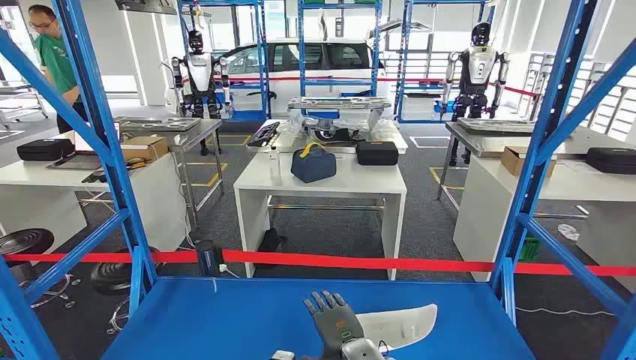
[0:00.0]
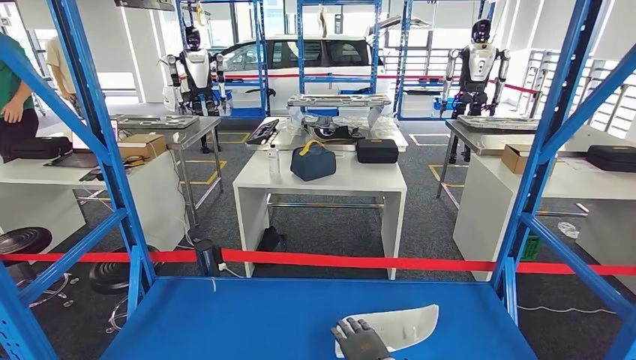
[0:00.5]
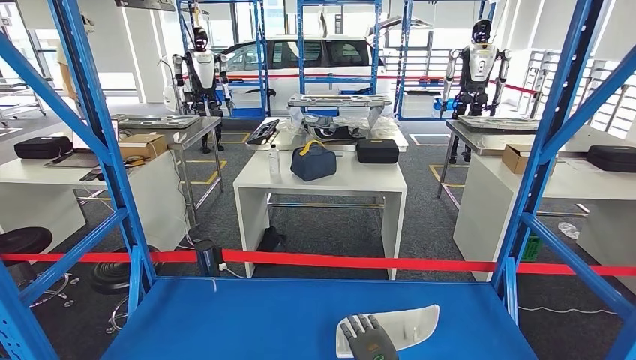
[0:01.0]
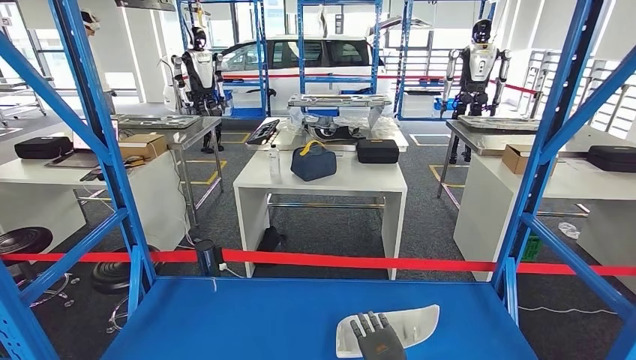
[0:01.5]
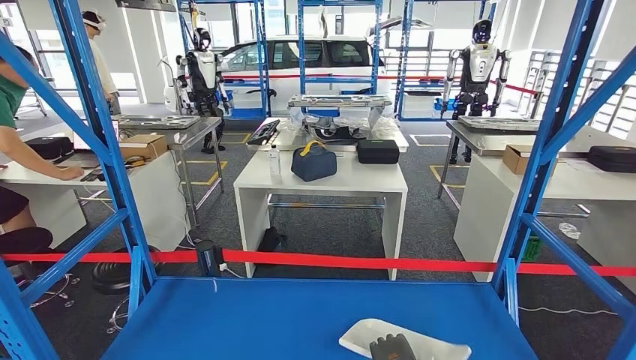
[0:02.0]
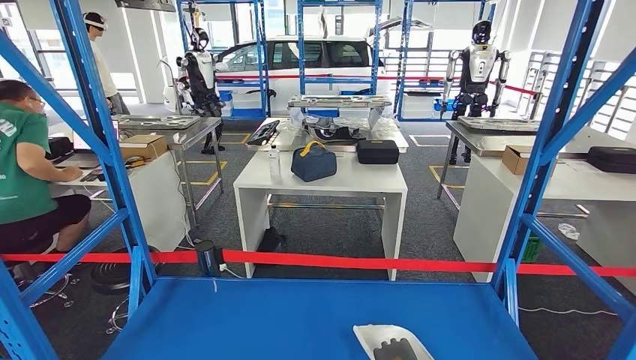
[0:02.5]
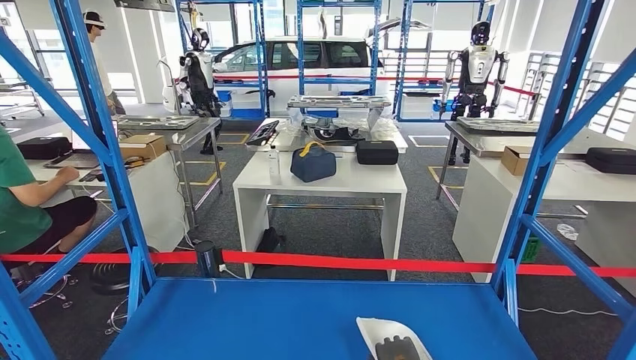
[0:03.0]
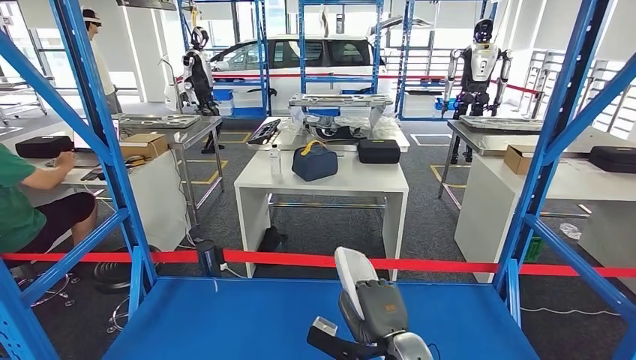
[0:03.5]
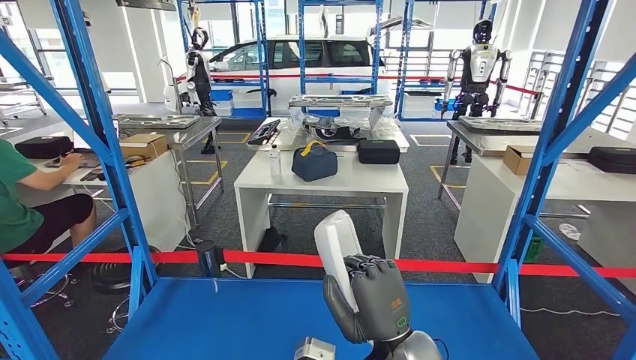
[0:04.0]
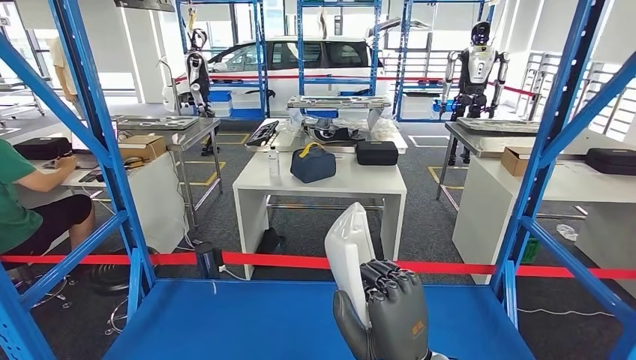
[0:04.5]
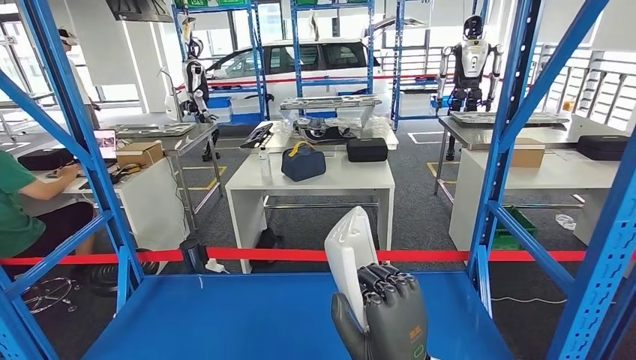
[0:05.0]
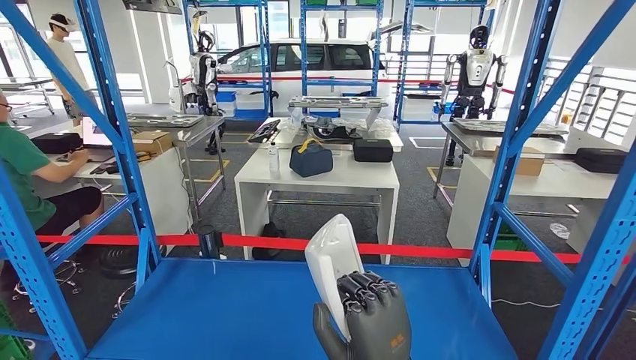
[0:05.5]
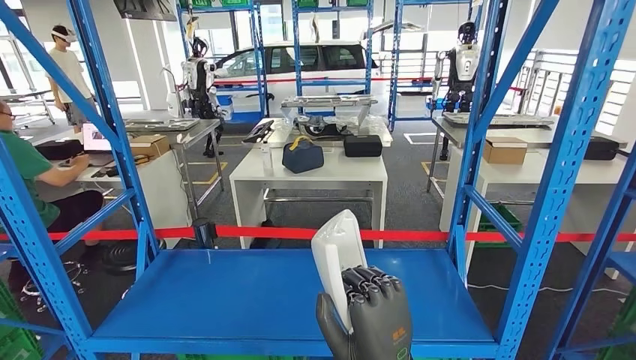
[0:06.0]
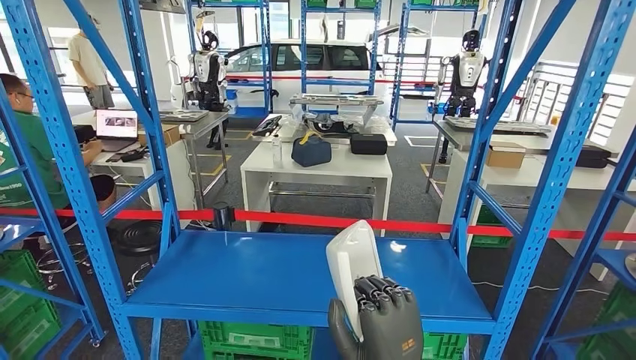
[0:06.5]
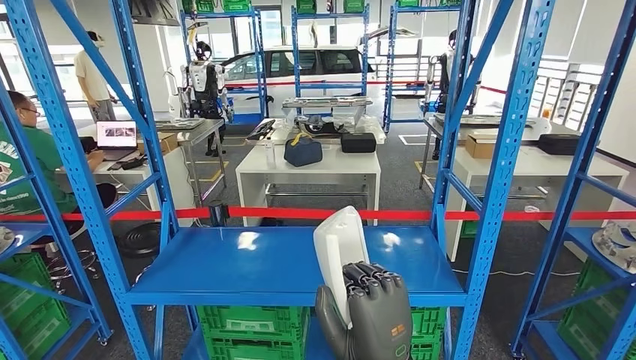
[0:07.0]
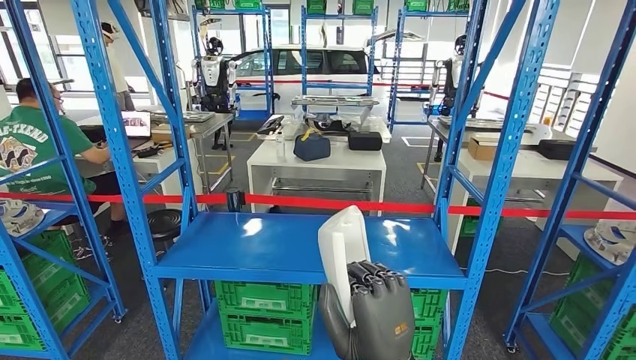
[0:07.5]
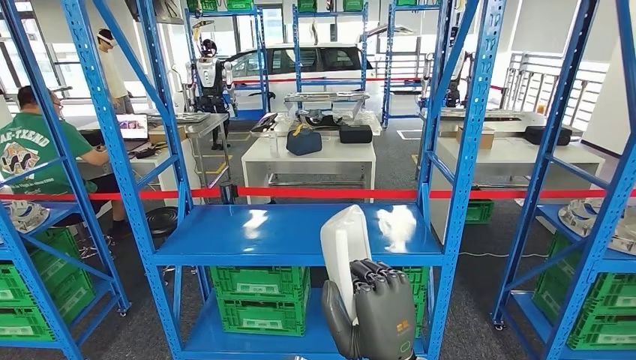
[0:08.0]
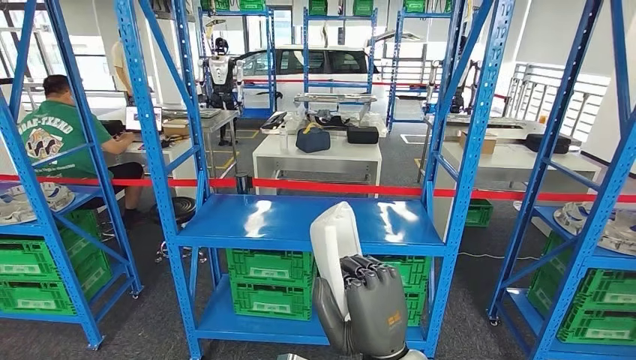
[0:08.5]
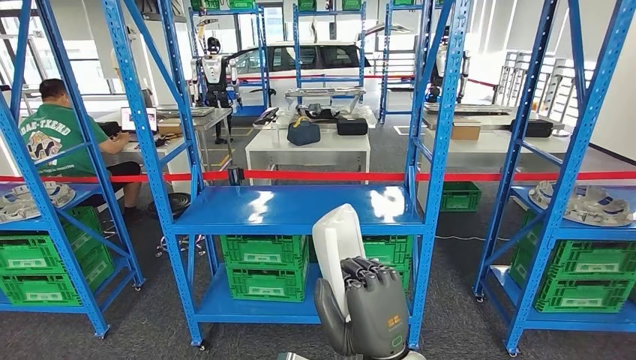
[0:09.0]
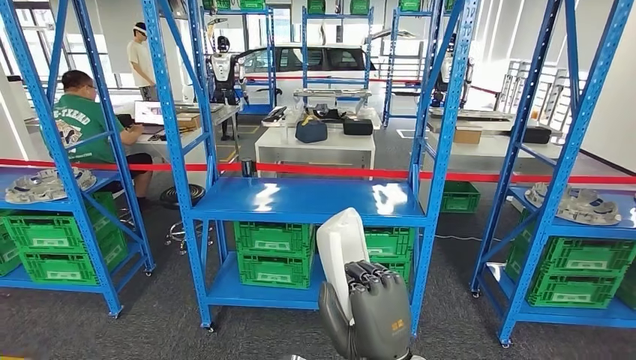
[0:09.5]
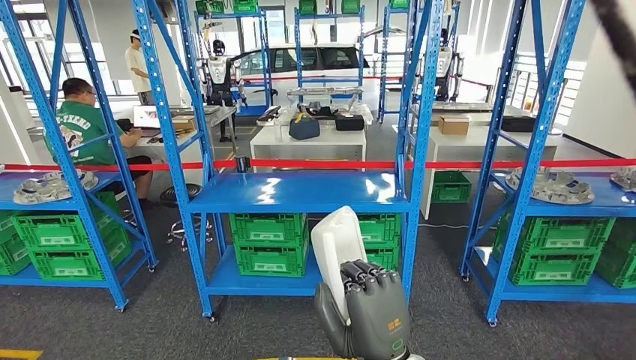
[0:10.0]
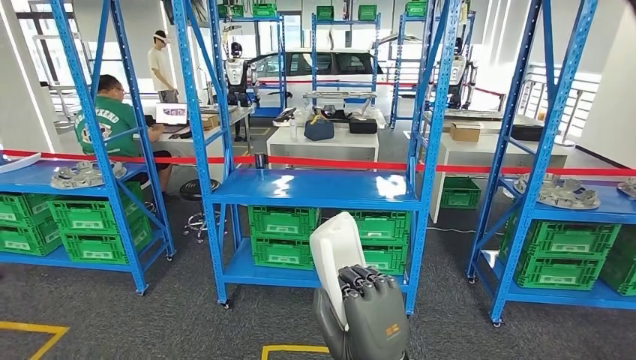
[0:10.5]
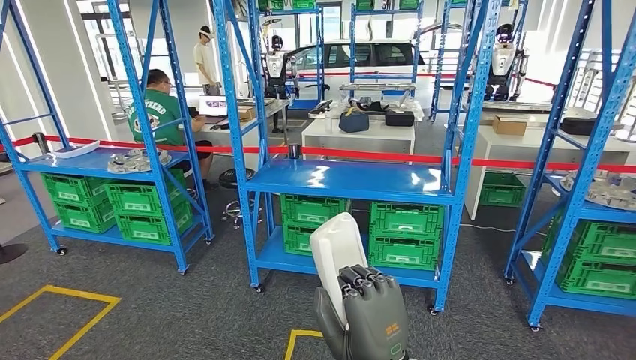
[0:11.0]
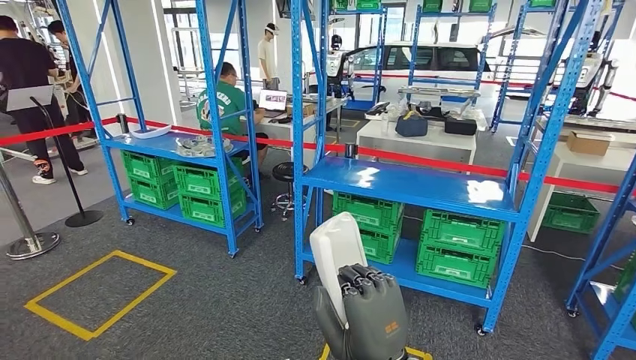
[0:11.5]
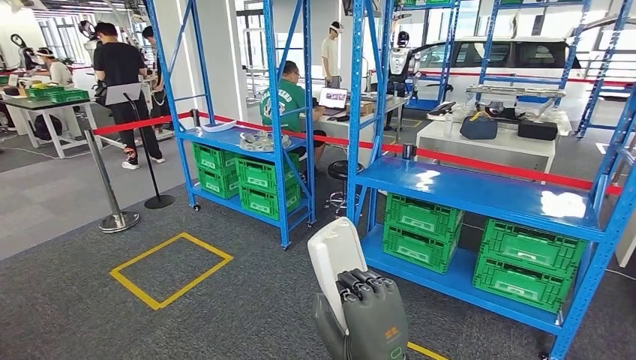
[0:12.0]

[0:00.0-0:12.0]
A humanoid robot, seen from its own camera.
Step, 0:00.0 to 0:04.0: Pick up the small component from the shelf.
0:02.0 to 0:04.0: The right hand is displaced upward and to the left by roughly 20 cm.

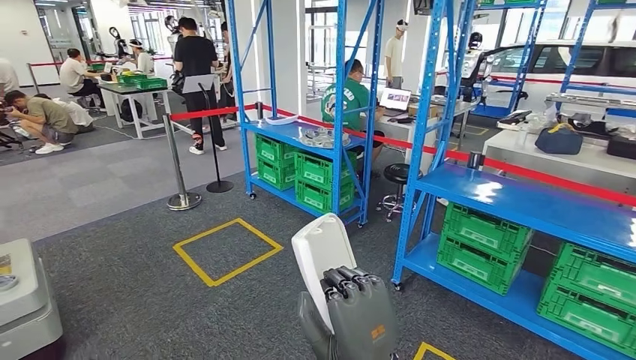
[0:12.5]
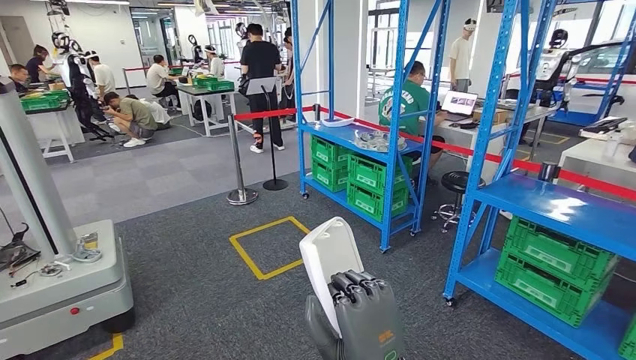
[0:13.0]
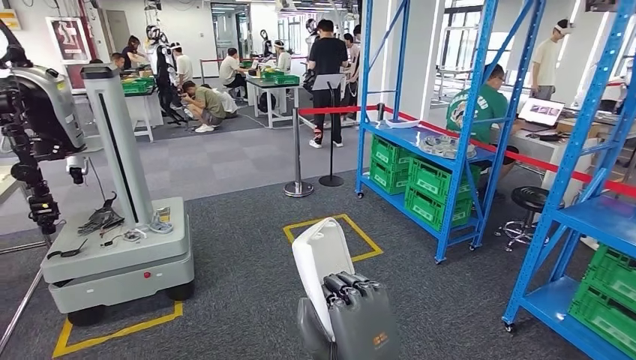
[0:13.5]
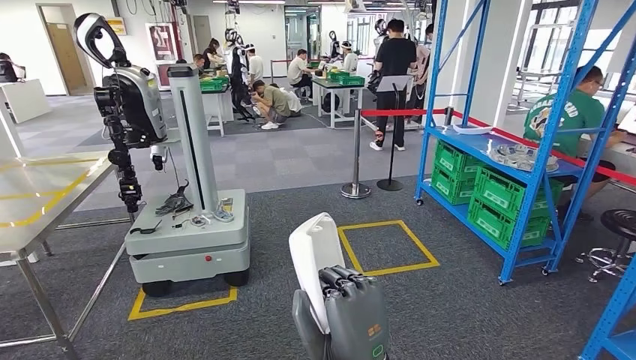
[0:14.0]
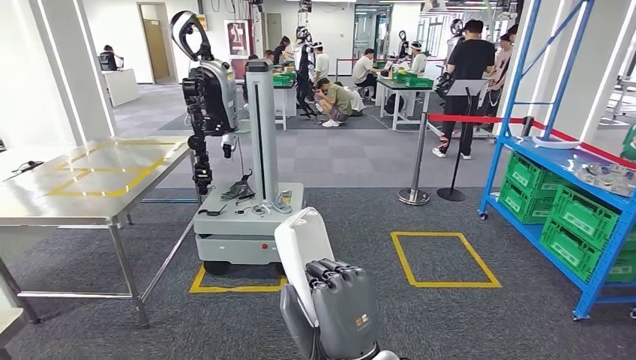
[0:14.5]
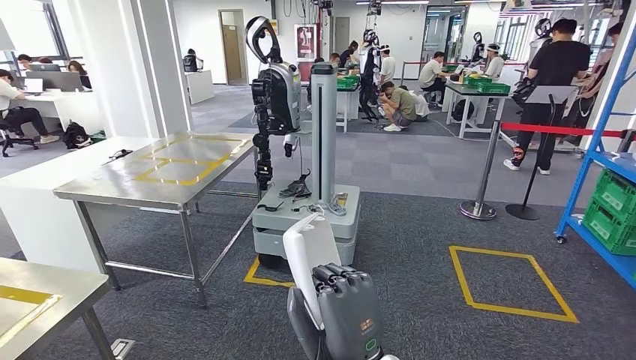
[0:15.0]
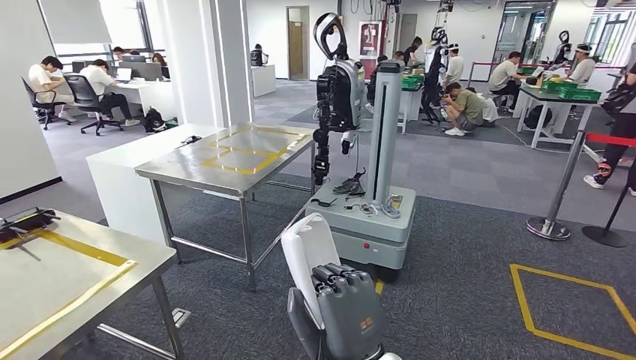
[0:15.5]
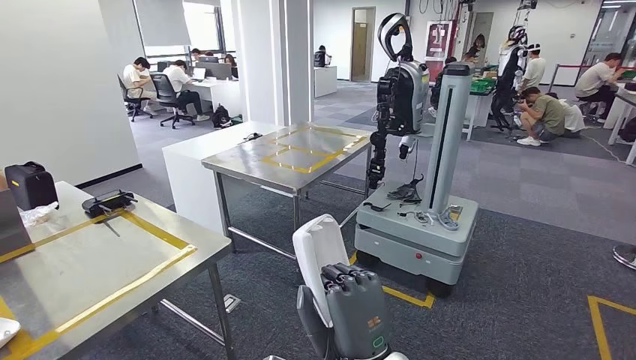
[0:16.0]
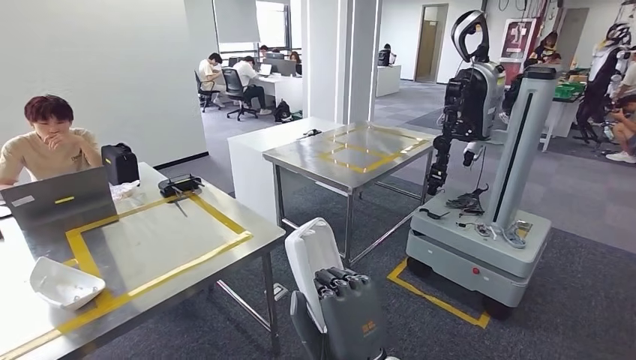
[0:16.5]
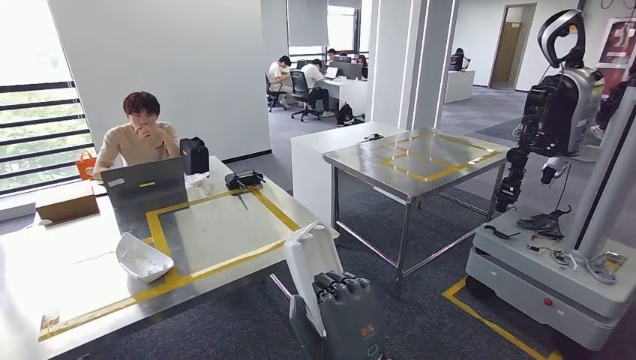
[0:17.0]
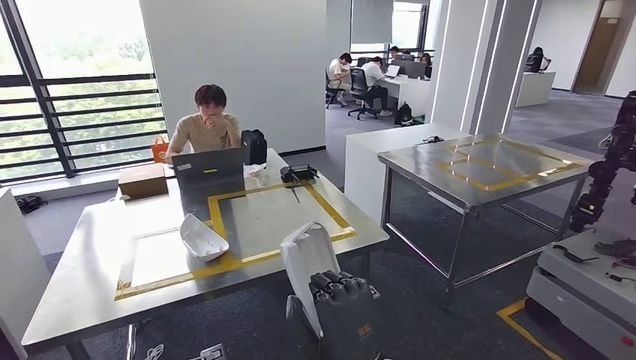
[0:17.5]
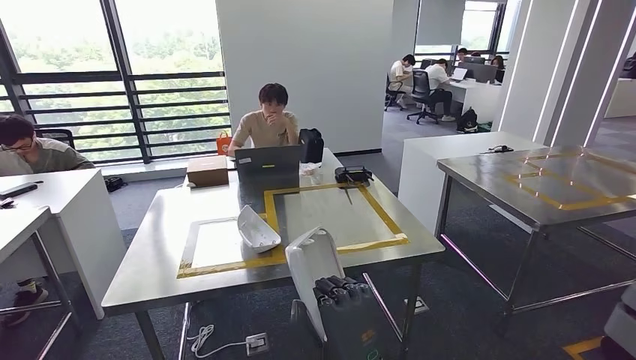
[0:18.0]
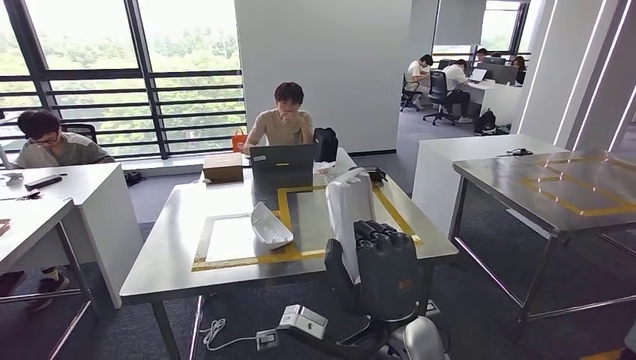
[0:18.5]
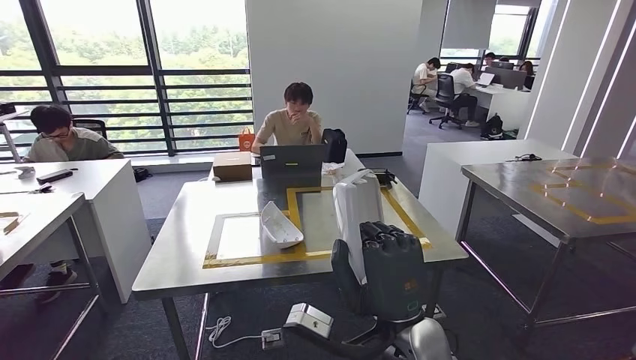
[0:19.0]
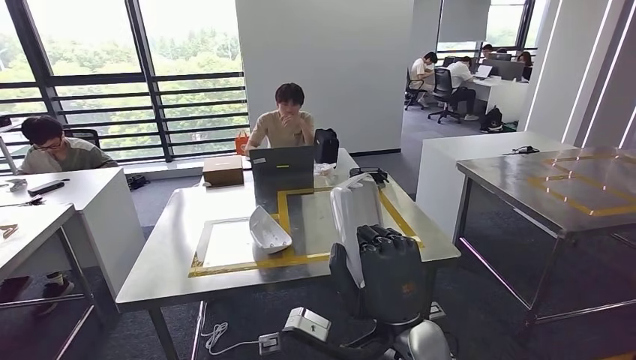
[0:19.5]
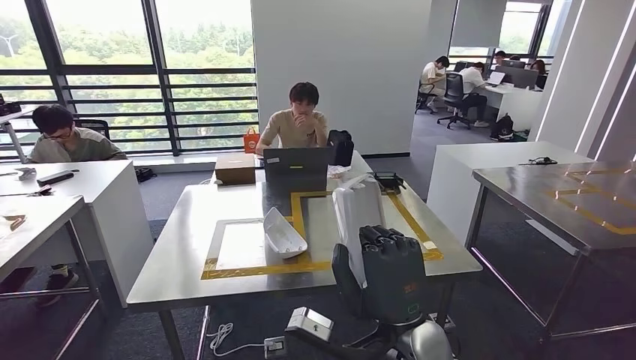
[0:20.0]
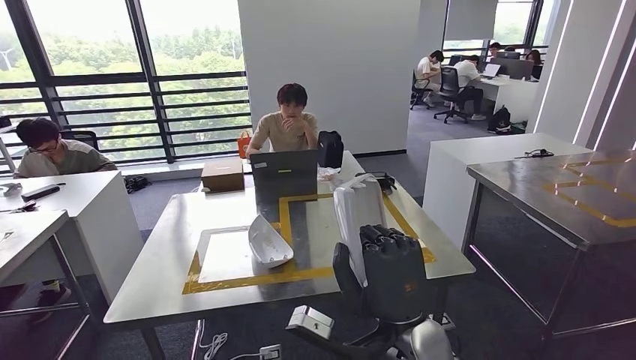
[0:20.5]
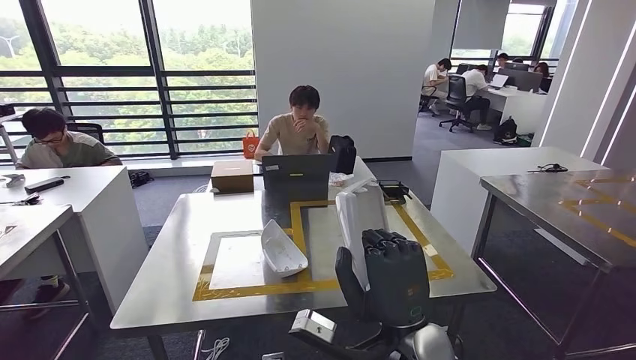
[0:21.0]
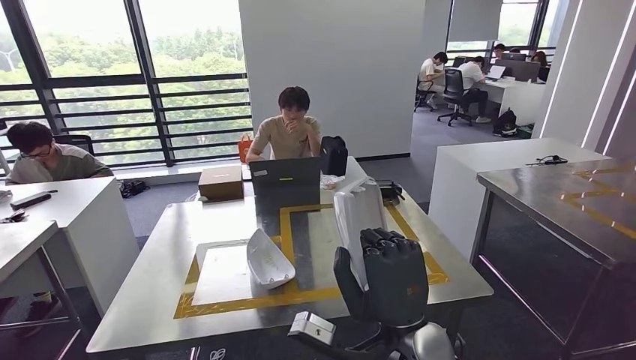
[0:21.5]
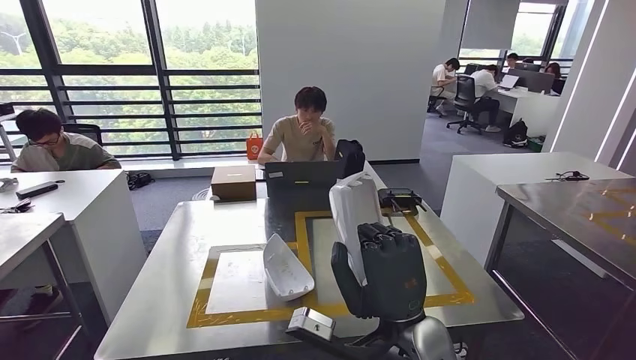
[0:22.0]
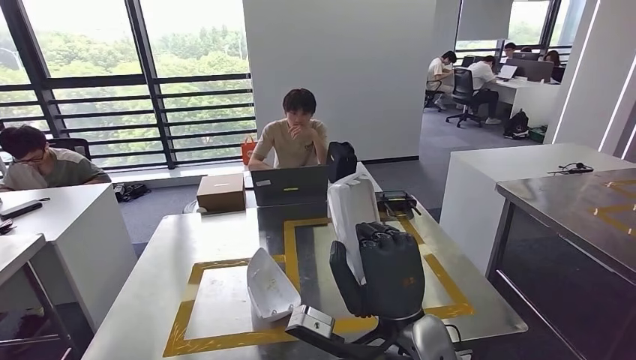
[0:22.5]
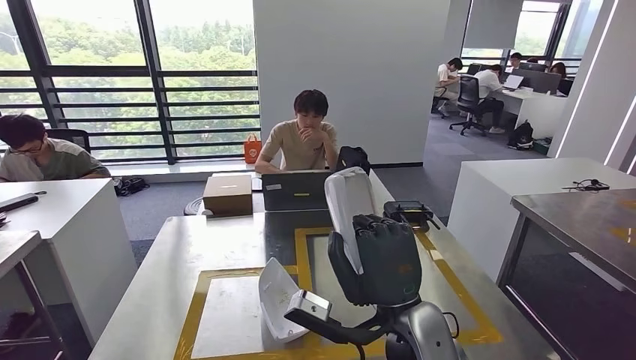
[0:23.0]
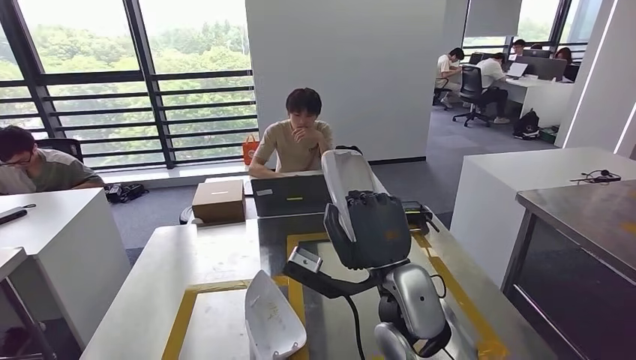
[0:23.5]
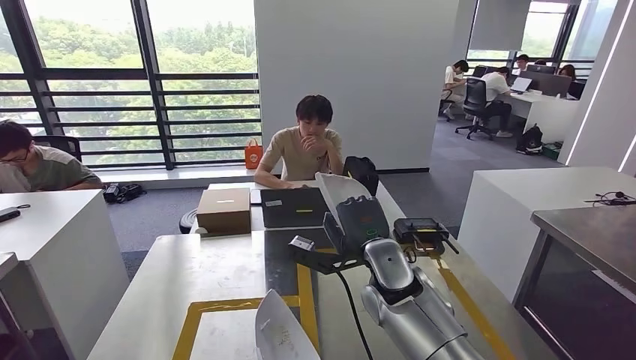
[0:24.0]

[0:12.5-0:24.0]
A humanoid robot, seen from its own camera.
Step, 0:12.5 to 0:18.0: Move the small component to the workbench.
